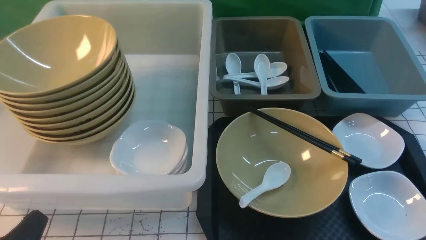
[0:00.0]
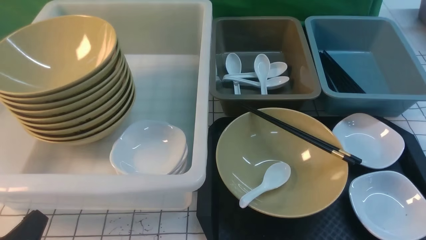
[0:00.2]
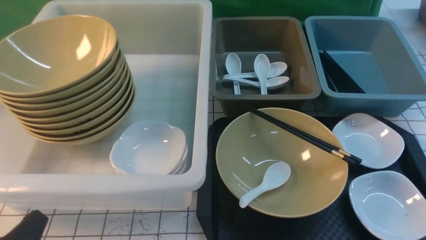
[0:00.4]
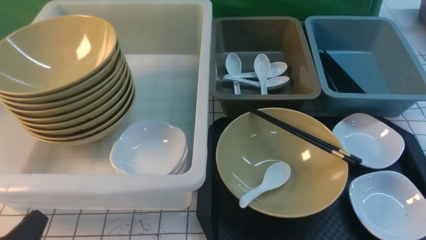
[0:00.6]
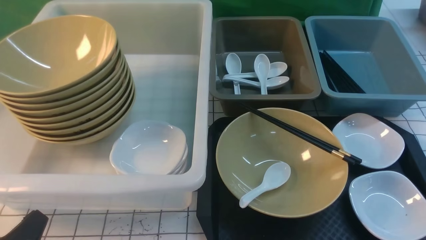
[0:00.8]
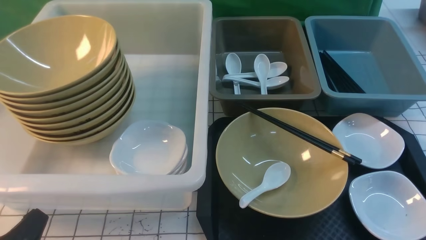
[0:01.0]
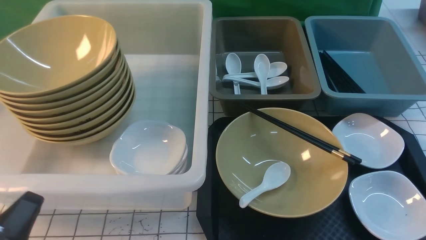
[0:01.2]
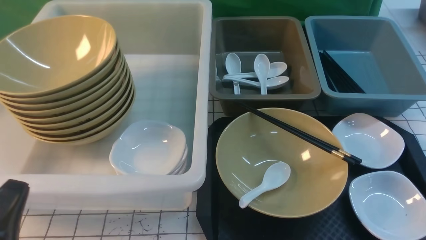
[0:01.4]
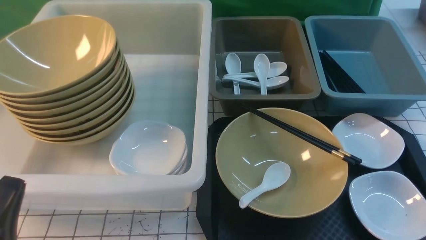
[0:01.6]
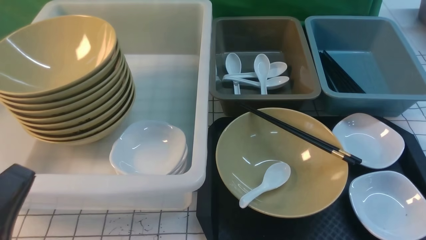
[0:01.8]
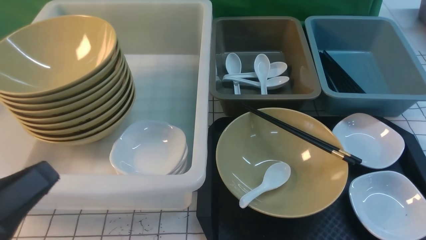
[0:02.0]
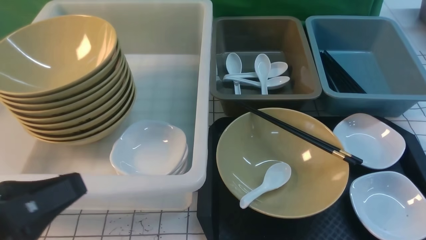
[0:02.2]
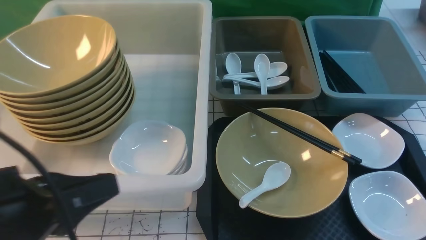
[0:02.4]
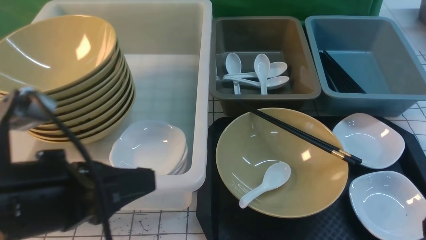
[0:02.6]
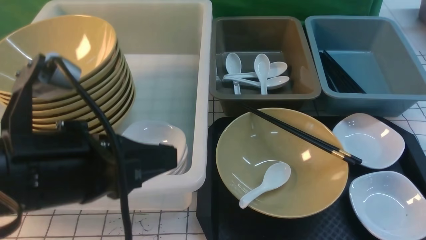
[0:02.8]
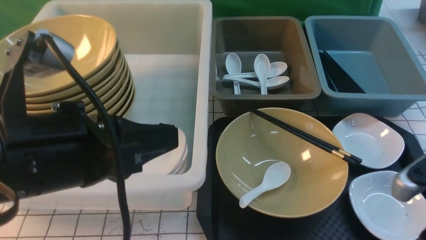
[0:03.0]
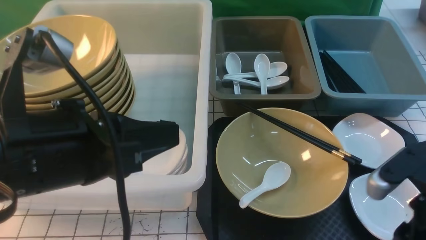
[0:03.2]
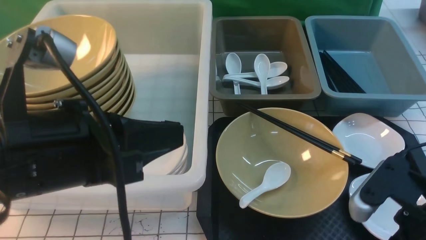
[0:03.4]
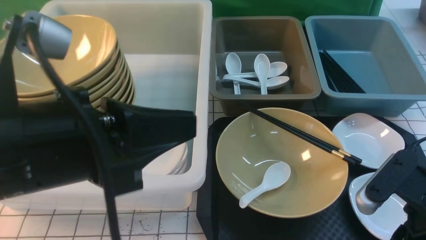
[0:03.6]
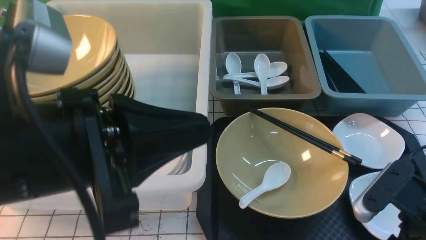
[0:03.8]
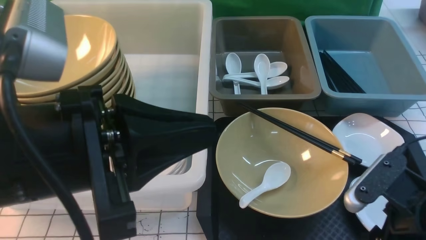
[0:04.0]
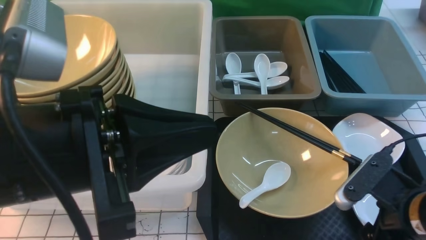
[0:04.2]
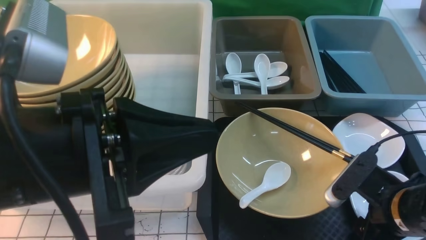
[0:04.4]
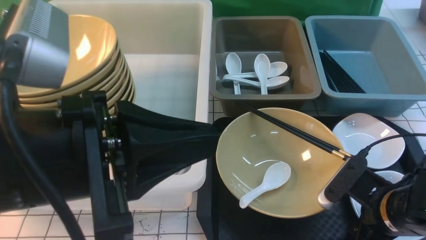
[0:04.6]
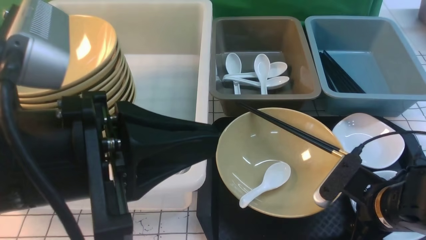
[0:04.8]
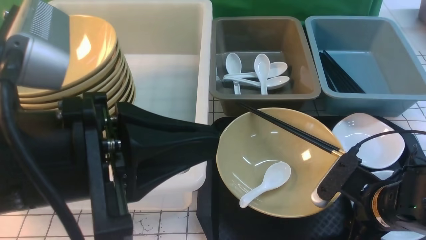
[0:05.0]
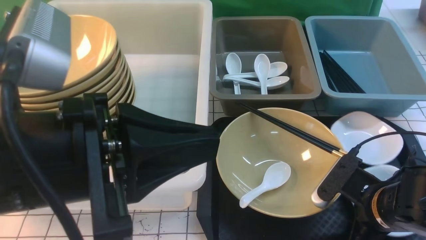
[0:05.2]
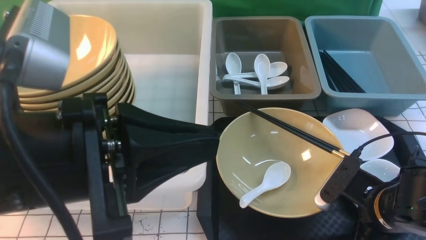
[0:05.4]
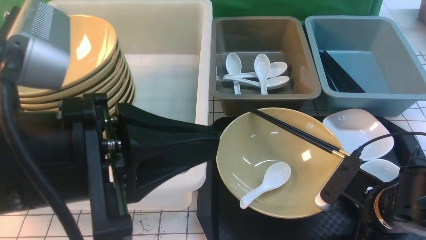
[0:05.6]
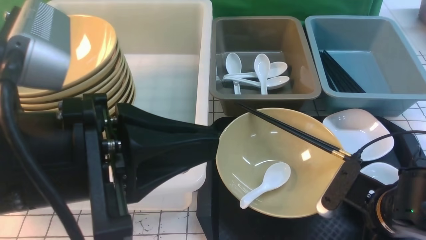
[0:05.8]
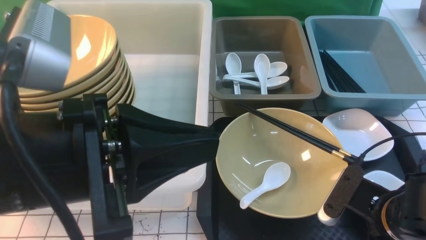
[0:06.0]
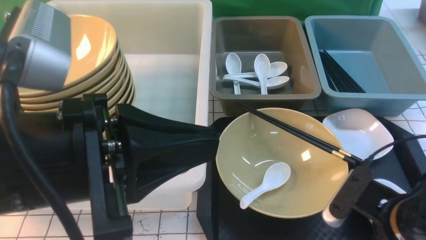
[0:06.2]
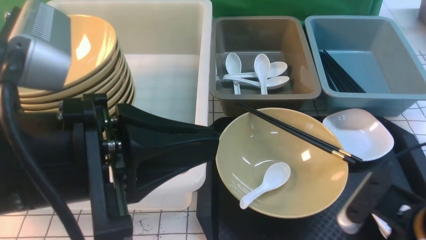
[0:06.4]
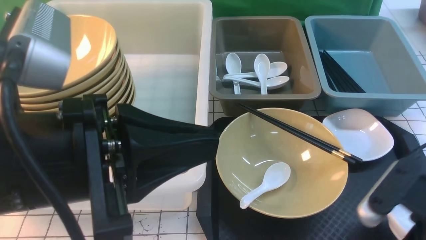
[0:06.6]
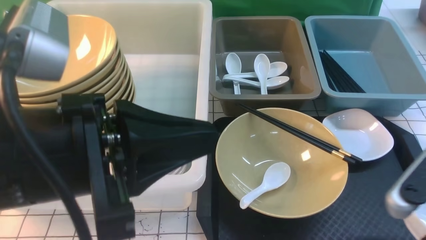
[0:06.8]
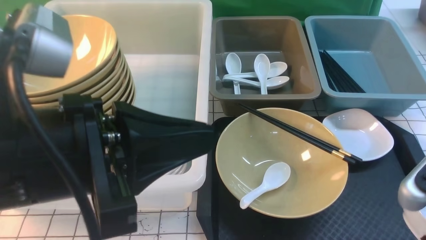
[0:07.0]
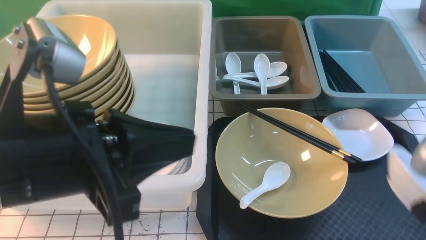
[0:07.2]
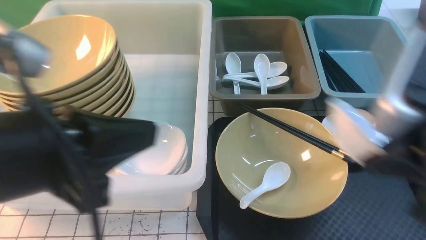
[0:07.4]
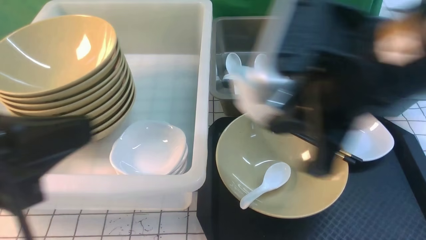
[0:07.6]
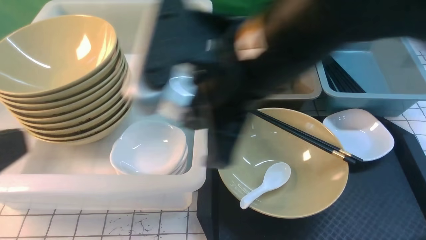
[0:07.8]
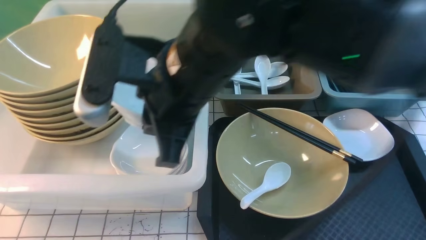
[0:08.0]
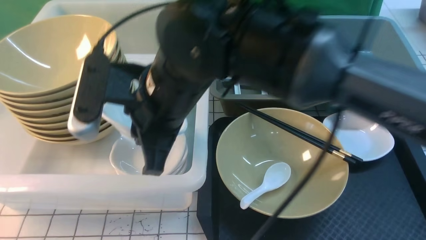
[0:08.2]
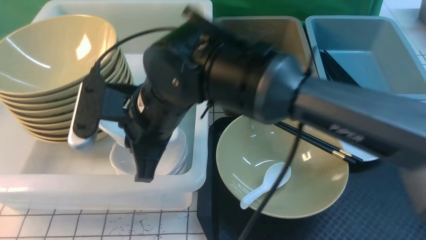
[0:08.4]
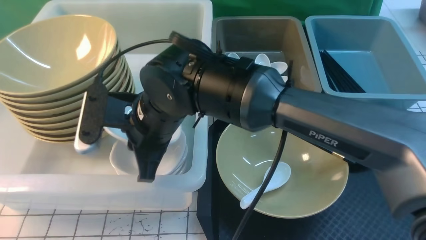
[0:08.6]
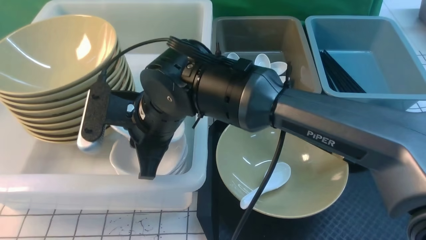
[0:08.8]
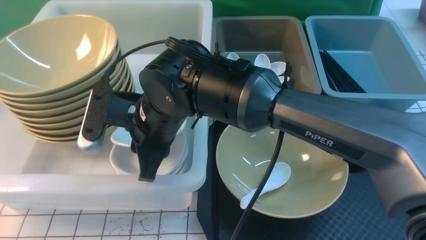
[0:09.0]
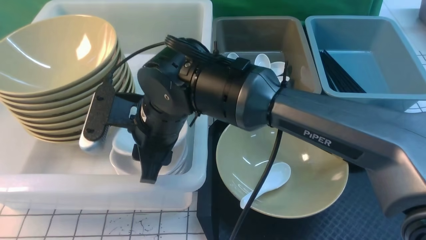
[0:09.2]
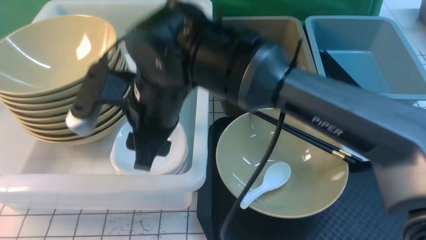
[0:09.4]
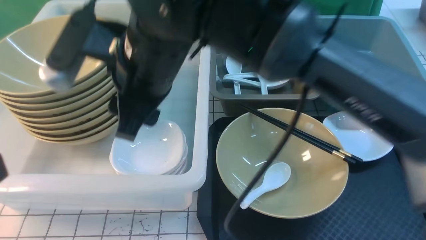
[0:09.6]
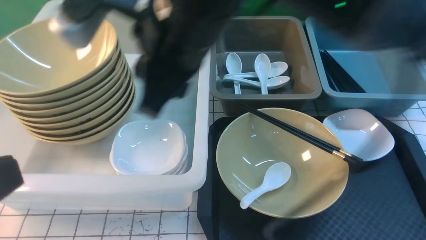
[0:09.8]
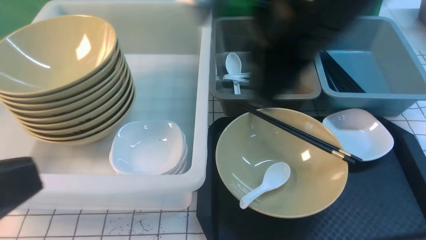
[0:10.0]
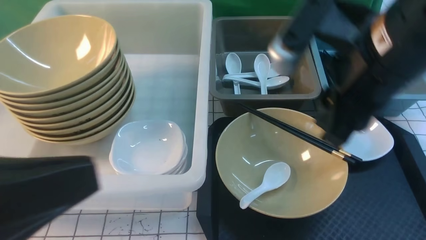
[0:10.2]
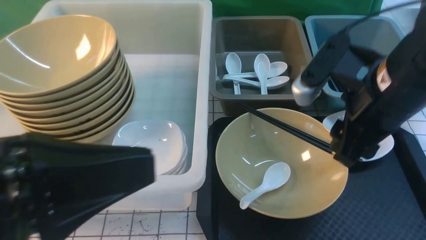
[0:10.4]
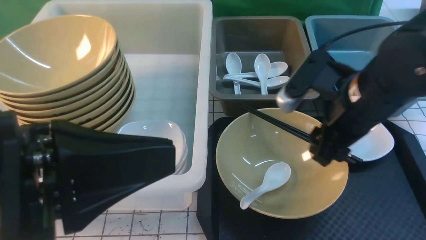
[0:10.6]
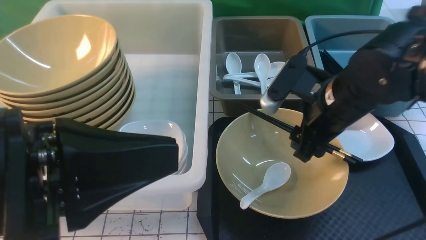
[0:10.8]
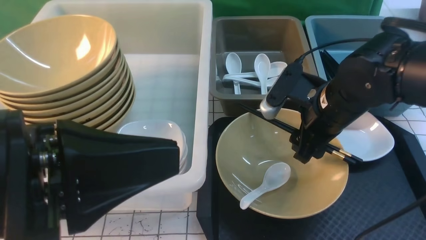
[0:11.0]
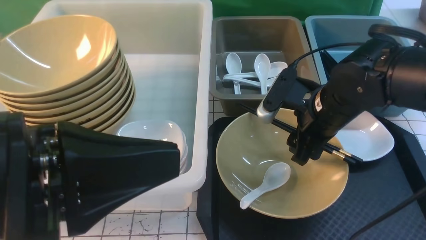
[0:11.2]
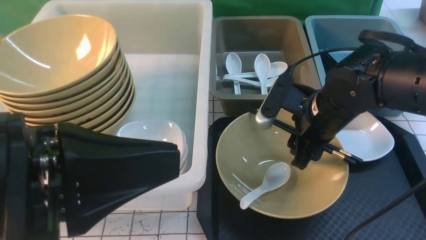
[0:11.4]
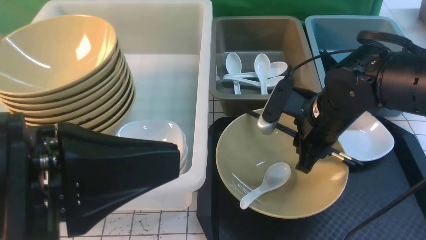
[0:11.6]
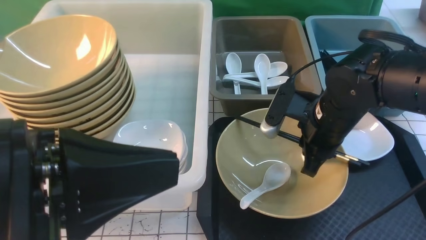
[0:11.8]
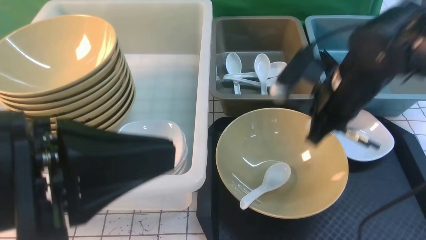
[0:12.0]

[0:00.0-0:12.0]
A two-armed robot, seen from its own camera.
Task of the whole recording: on white black table put chopsticks spoon bowls plates into blue grey white boxes.
Step, 0:00.0 to 0:06.6: use the right arm to grab the plate.
Step, 0:06.8 to 0:09.8: use the right arm to put the plate into the large storage box on the left.
0:01.6 to 0:03.0: The left gripper heads upward, to the right and forward, covering about 20 cm; the right gripper heads forward, upward and to the left, covering approximately 15 cm.
0:03.0 to 0:04.4: The right gripper travels downward by some 10 cm, and opens its fingers.
0:04.4 to 0:06.0: The right gripper closes its fingers.
0:06.0 to 0:07.6: The right gripper travels upward and to the left by approximately 25 cm. The left gripper heads to the left, covering some 5 cm.
0:07.6 to 0:09.0: The left gripper shifts by some 5 cm, while the right gripper moves to the left, downward and forward, approximately 25 cm.
0:09.0 to 0:10.4: The left gripper travels to the right by roughly 10 cm. Meanwhile the right gripper is displaced to the right by roughly 25 cm, and opens.
0:10.4 to 0:12.0: The right gripper moves forward, about 10 cm, and closes.

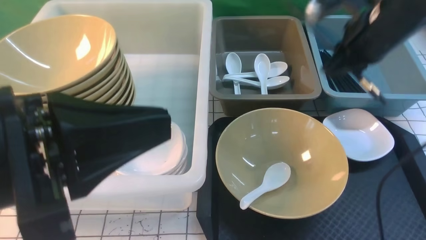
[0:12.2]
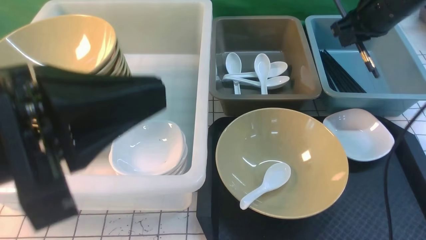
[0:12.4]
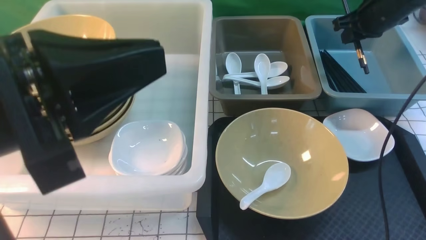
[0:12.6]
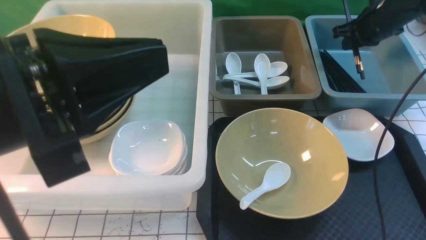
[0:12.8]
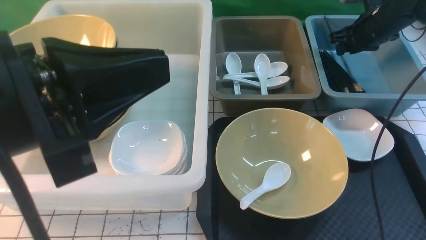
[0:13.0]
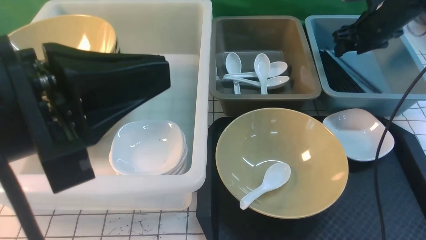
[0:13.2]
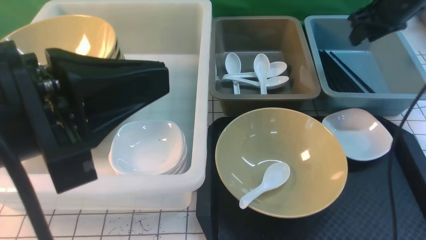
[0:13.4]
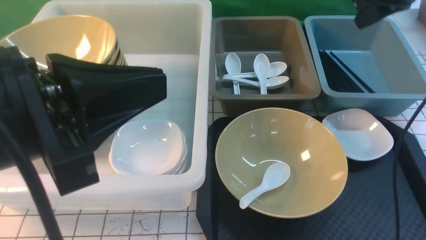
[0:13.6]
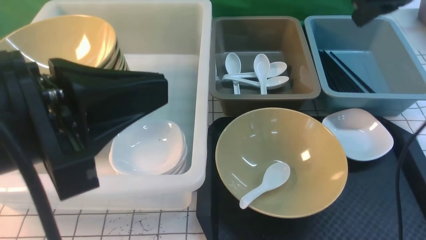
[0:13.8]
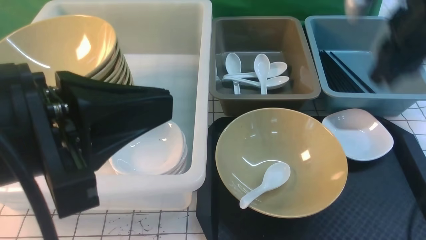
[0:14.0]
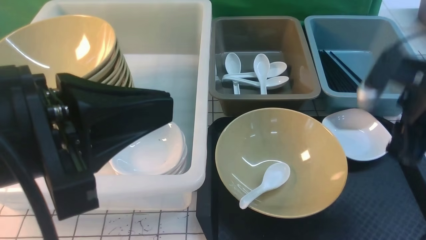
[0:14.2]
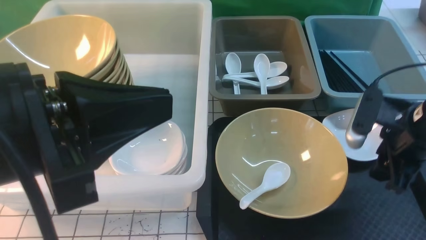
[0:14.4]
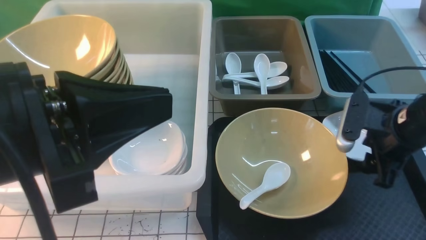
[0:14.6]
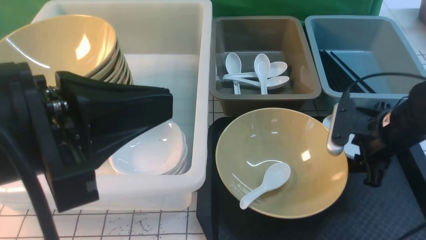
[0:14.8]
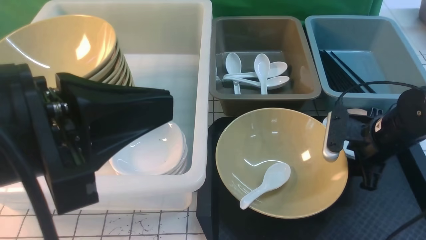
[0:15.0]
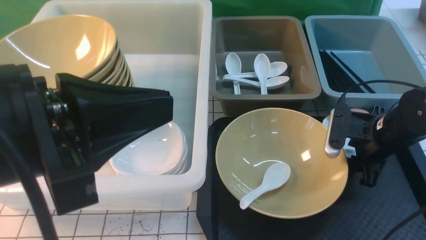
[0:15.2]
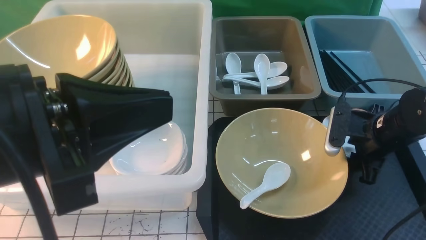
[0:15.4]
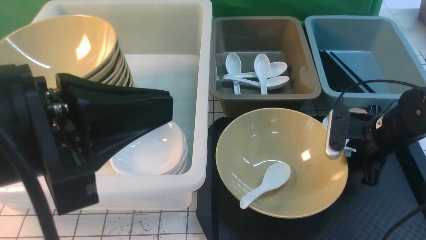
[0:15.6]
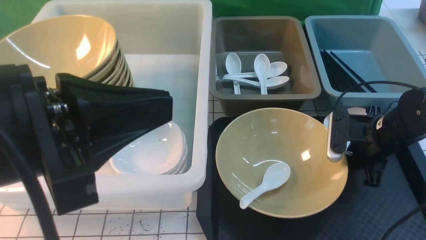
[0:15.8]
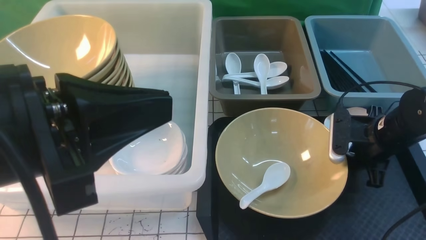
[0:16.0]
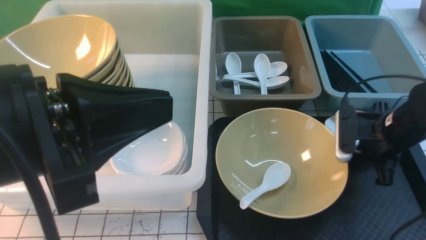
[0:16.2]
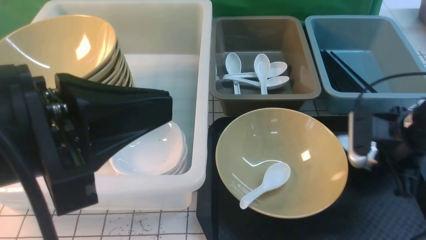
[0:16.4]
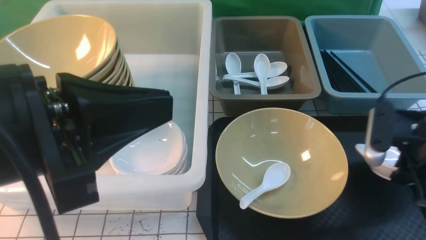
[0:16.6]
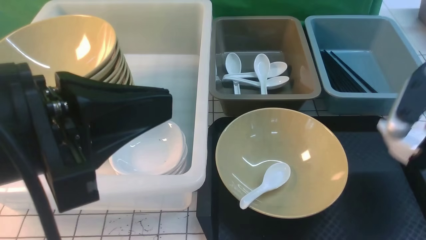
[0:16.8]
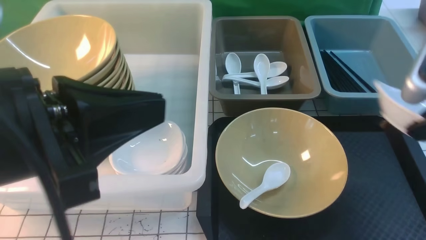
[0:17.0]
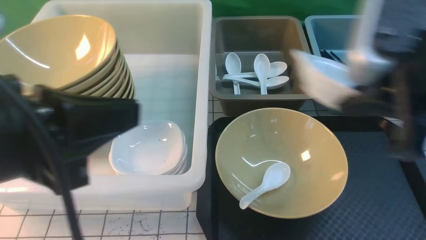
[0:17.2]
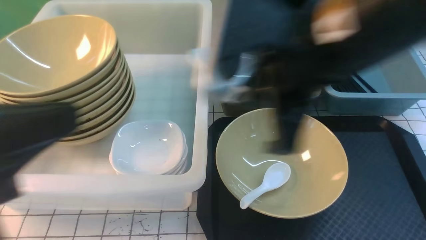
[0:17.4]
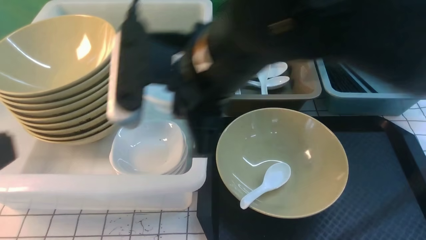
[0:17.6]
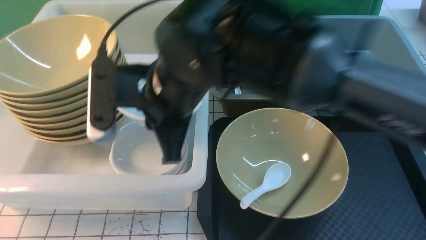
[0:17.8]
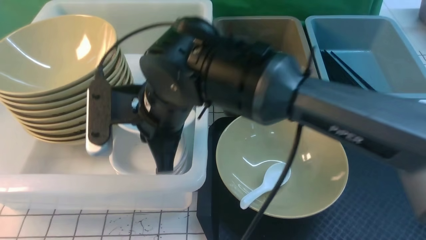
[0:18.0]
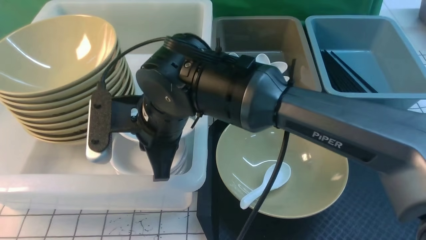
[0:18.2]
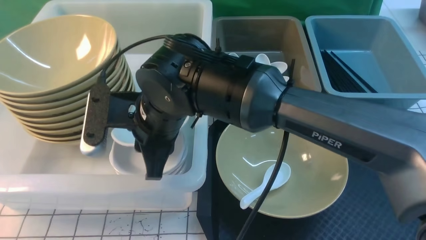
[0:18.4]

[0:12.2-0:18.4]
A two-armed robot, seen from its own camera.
Task of the whole recording: on white black table put chopsticks spoon bowls plates into blue grey white boxes.
Step, 0:12.4 to 0:13.0: use the right arm to put the chopsticks into the small storage box on the right.
Step, 0:13.2 to 0:16.6: use the right arm to grab the plate.
0:12.2 to 0:13.8: The right gripper shifts about 5 cm upward, goes forward and returns, approximately 15 cm each way, and opens and closes again.
0:13.8 to 0:15.4: The right gripper travels downward by about 25 cm, and opens up.
0:15.4 to 0:16.8: The right gripper moves upward and backward, some 20 cm, and closes up.
0:16.8 to 0:18.4: The right gripper shifts approximately 35 cm to the left, and opens; the left gripper travels to the left and backward by about 10 cm.
